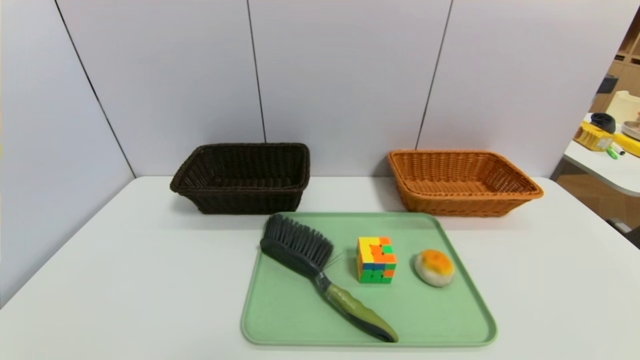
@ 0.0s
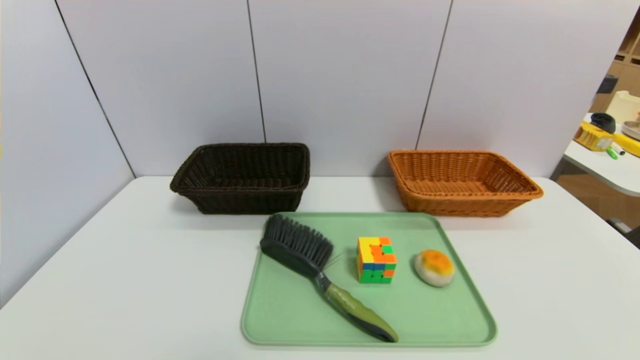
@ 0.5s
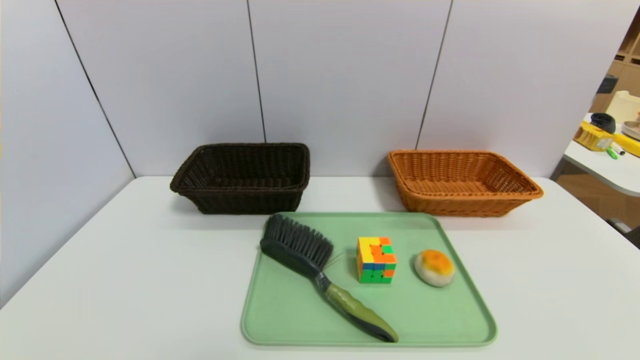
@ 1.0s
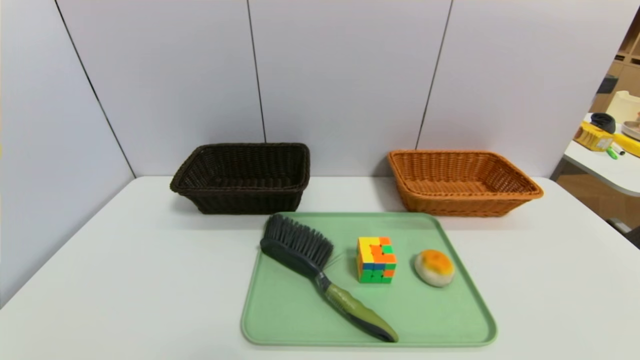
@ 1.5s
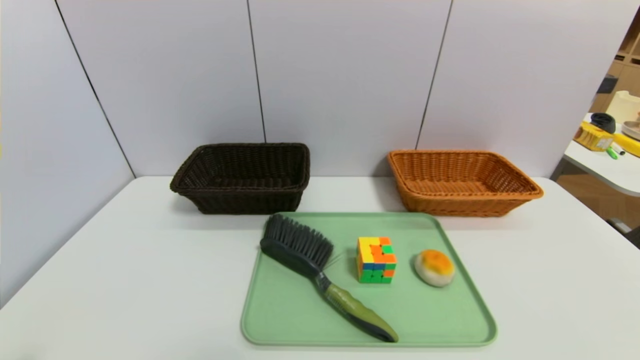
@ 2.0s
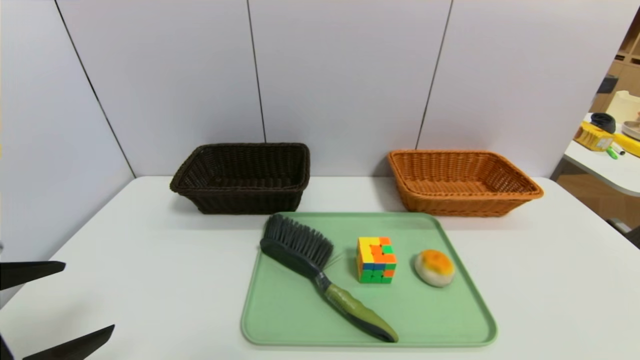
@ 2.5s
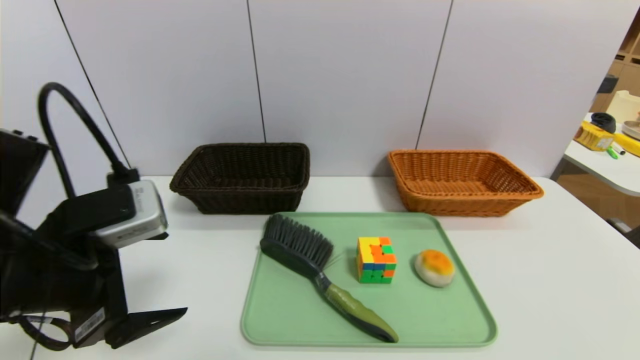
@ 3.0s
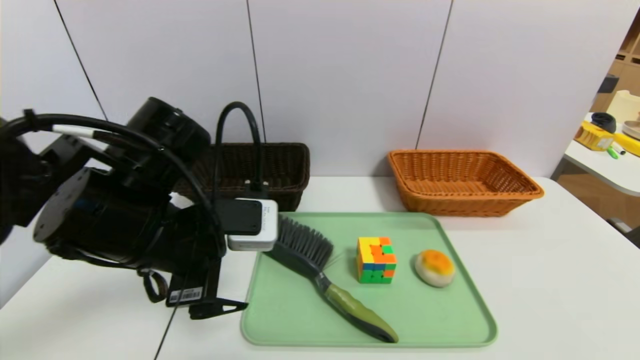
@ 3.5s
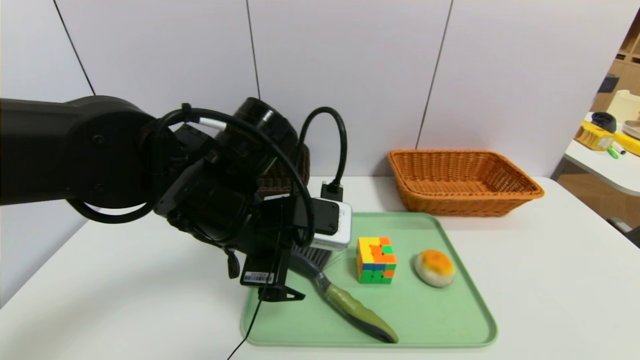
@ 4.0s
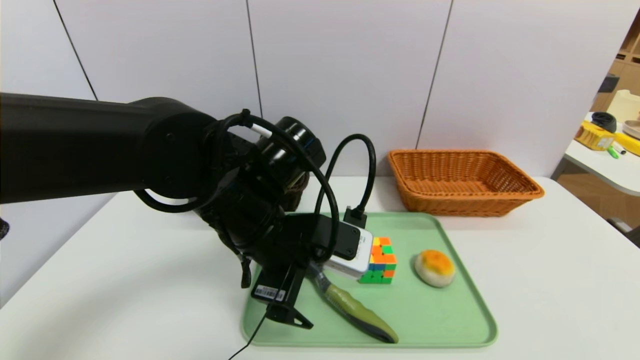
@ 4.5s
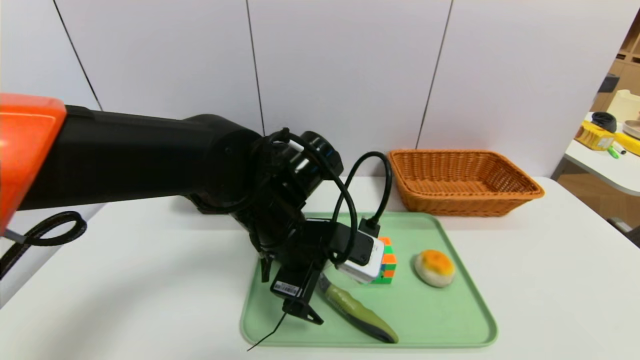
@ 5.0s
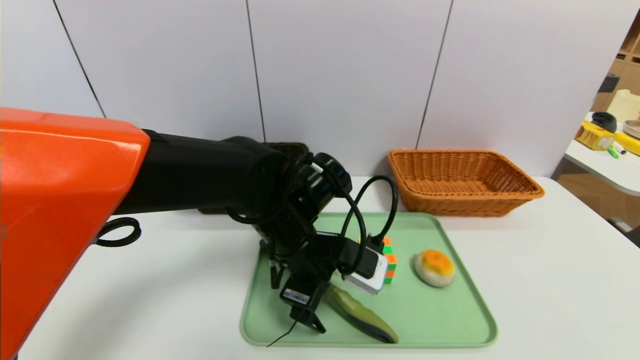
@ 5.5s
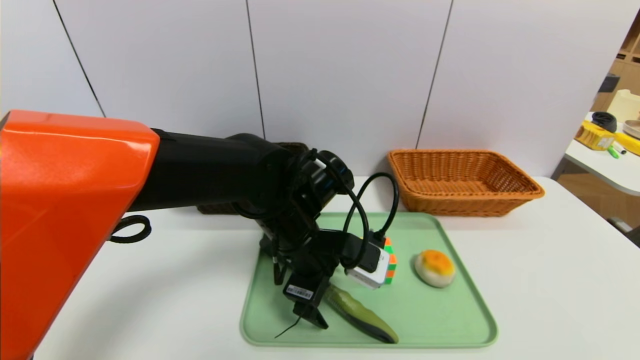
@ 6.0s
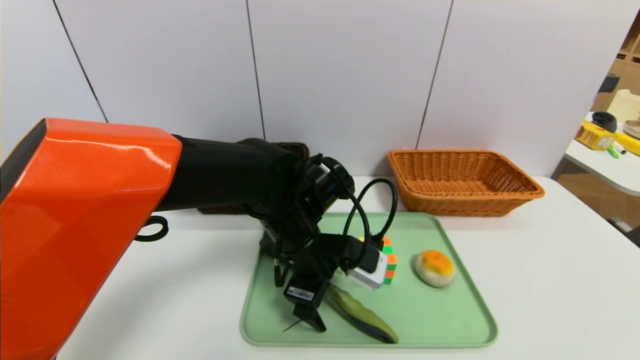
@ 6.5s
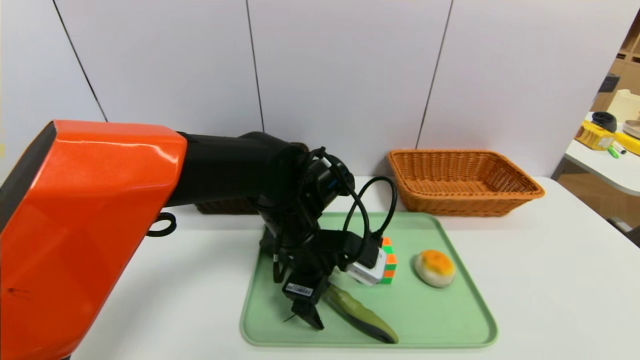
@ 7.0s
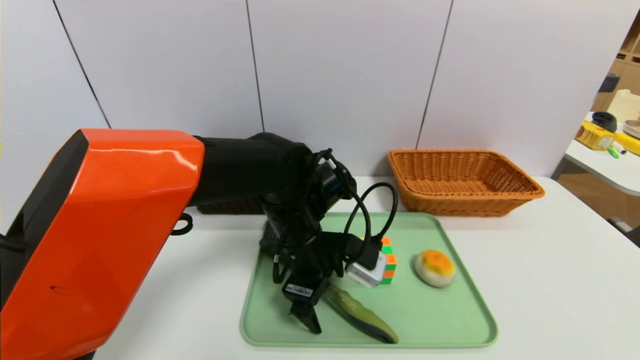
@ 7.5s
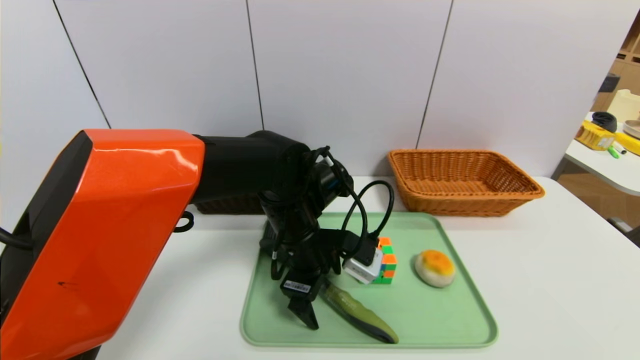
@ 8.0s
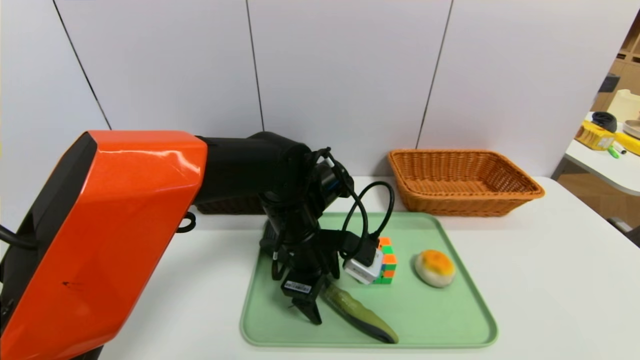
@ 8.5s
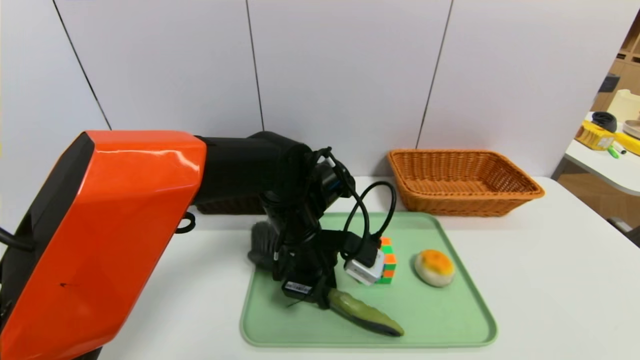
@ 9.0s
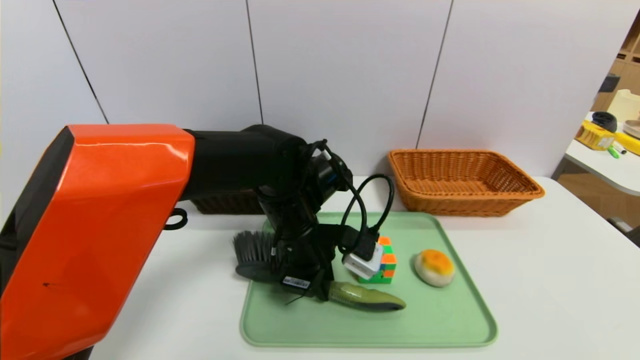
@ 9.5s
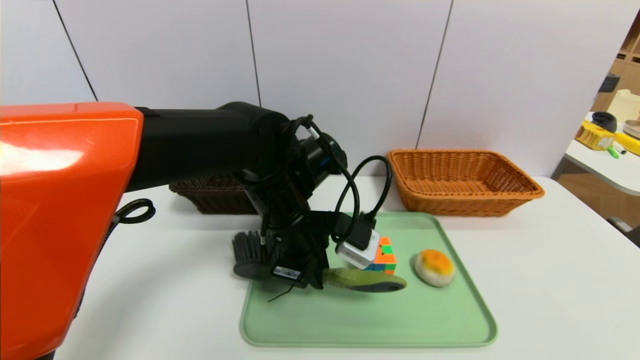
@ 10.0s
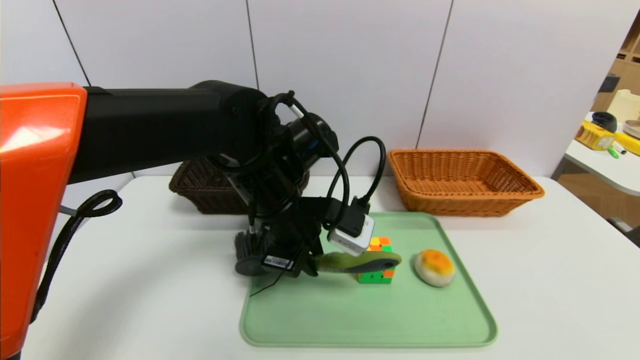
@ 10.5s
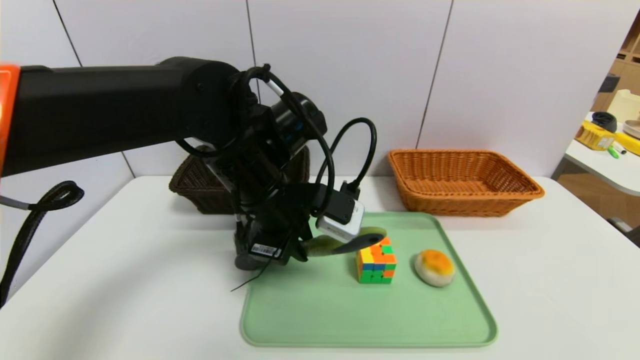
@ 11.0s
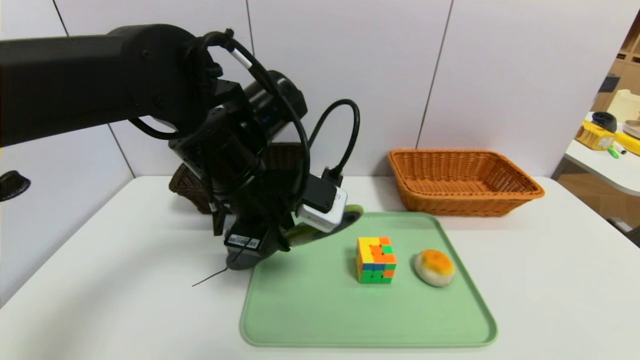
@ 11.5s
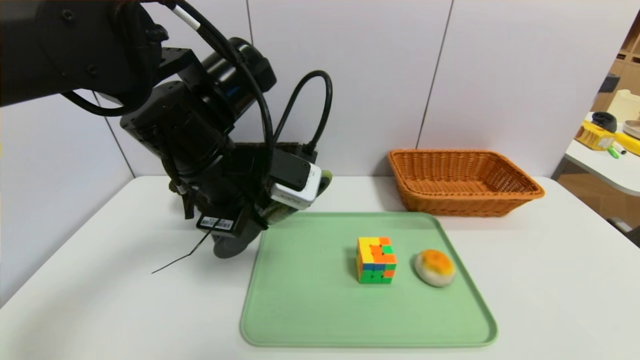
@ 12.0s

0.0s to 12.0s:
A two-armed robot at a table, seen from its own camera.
Task of the whole recording: place the food in the right basket with the right gripper, and place the non food items in the left basket with the left gripper.
2.0s to 4.0s: The left gripper travels forward and to the right by roughly 30 cm.
4.0s to 6.0s: The left gripper is displaced downward and to the right by approximately 10 cm.
6.0s to 8.0s: The grippers stay close to where they were, moving slightly.
8.0s to 10.0s: The left gripper closes.
10.0s to 12.0s: The left gripper shifts some 10 cm upward and to the left.

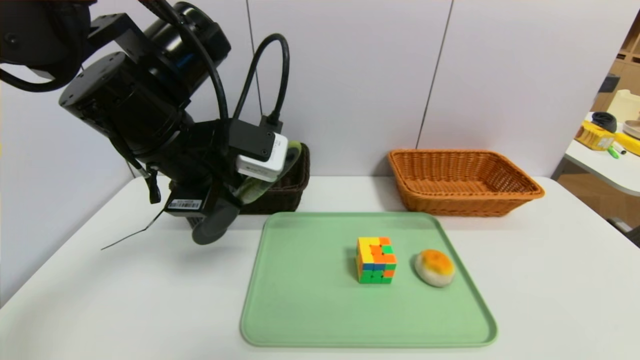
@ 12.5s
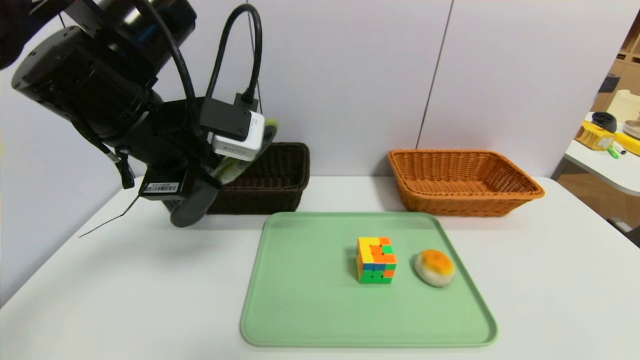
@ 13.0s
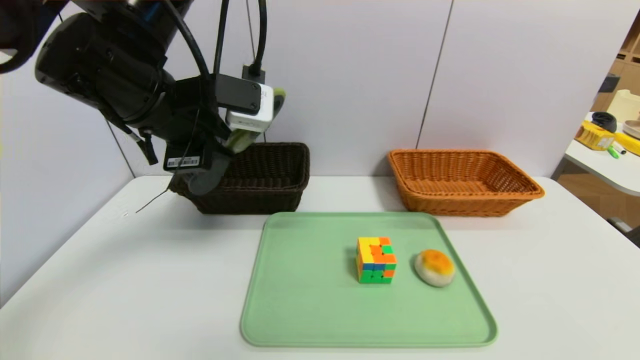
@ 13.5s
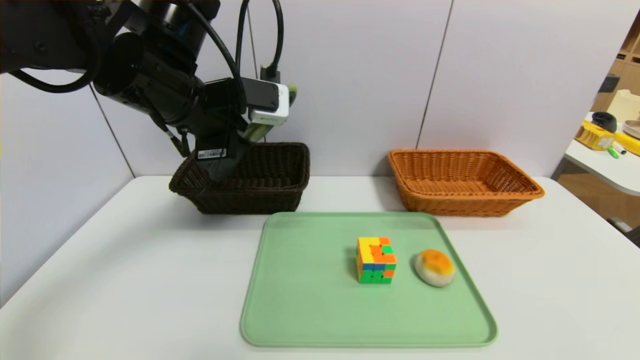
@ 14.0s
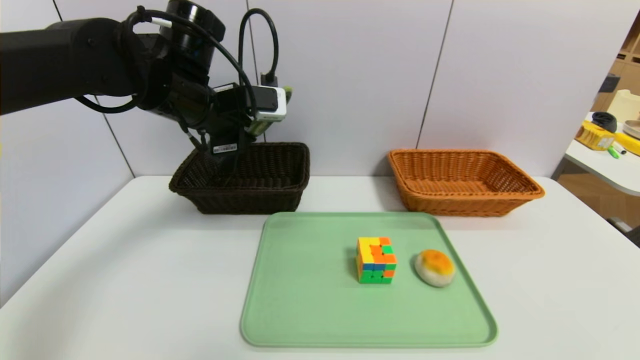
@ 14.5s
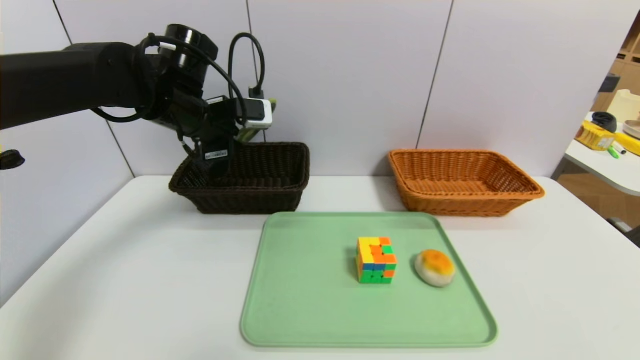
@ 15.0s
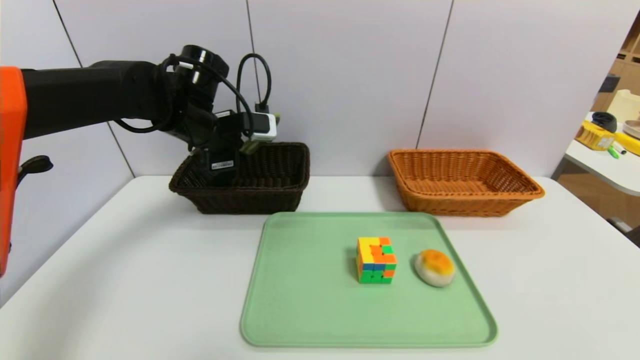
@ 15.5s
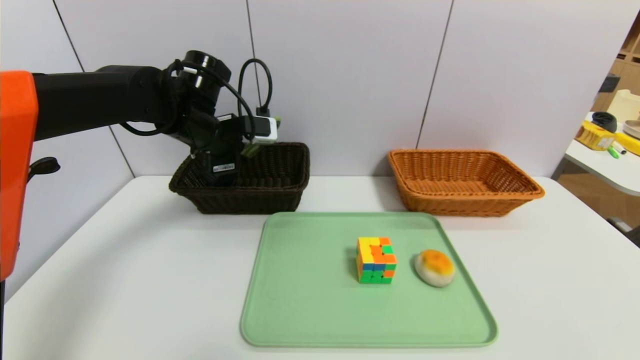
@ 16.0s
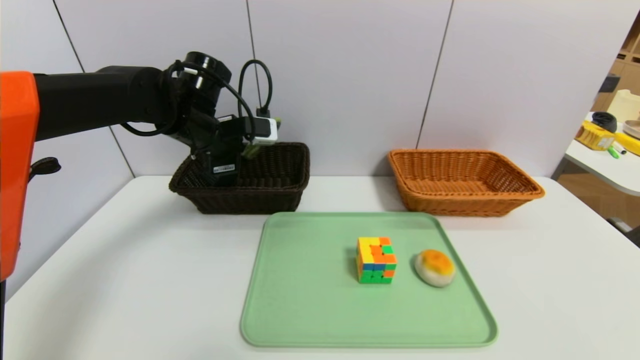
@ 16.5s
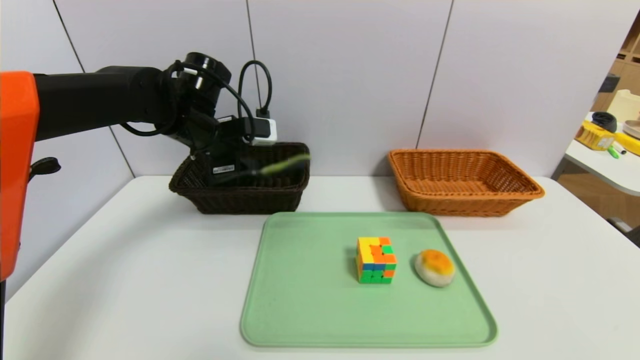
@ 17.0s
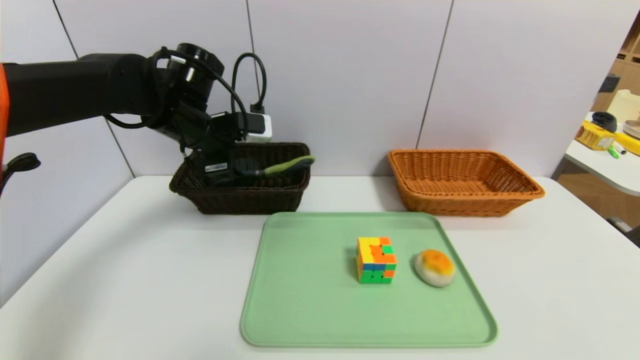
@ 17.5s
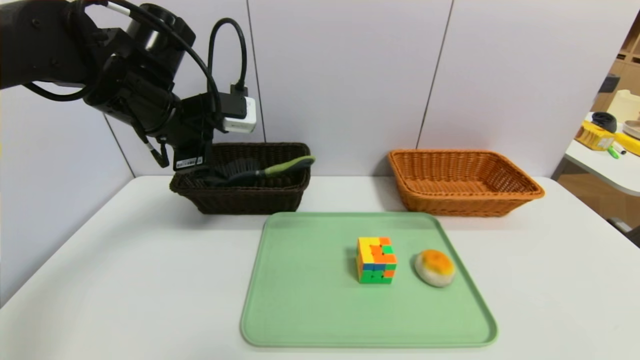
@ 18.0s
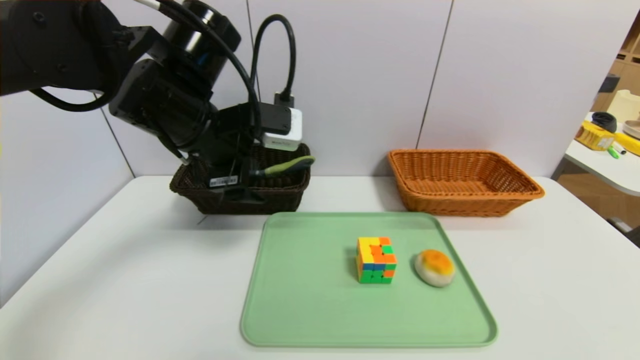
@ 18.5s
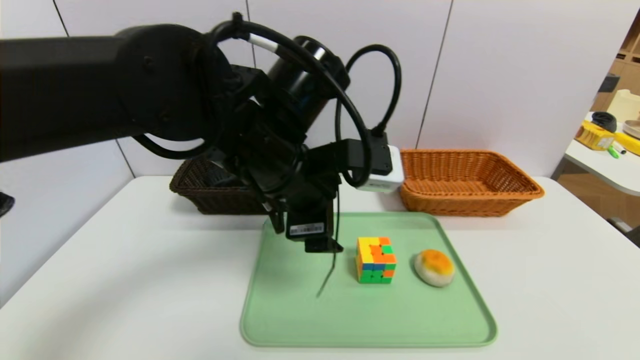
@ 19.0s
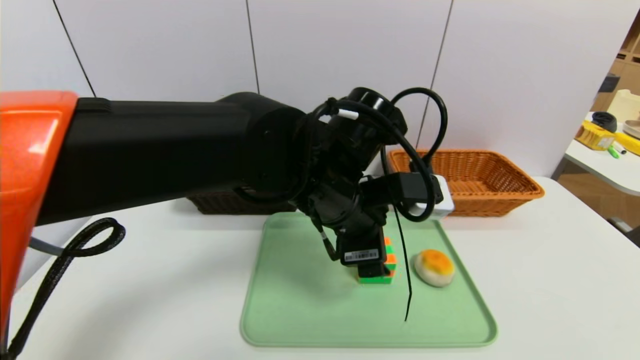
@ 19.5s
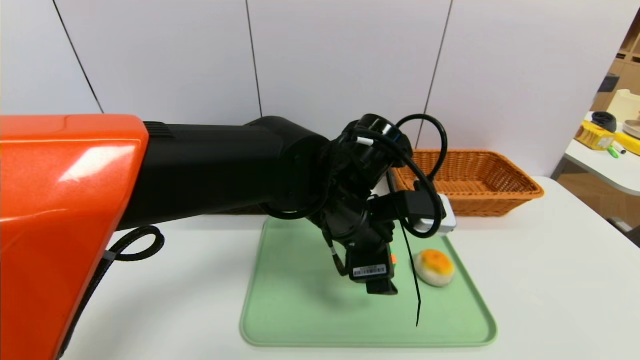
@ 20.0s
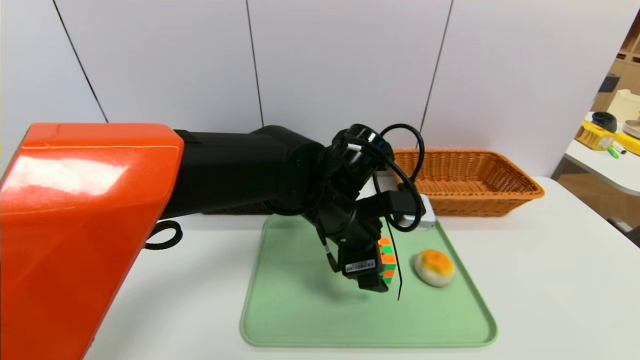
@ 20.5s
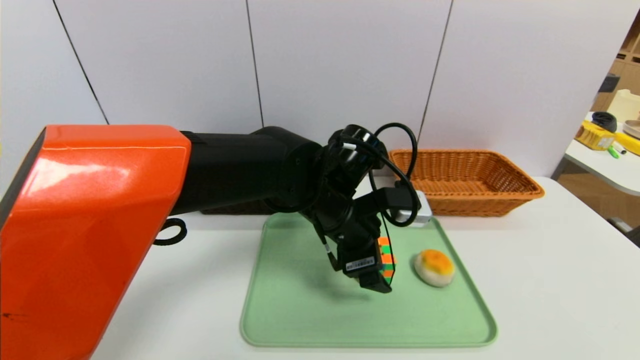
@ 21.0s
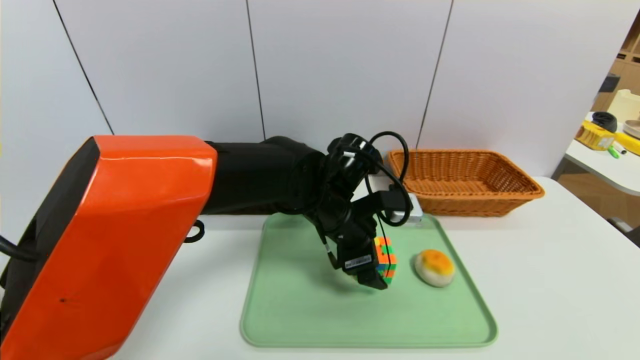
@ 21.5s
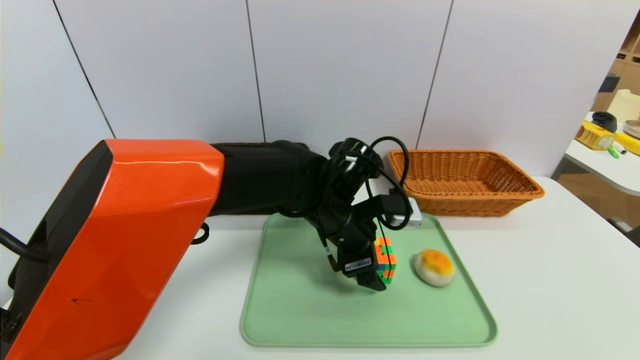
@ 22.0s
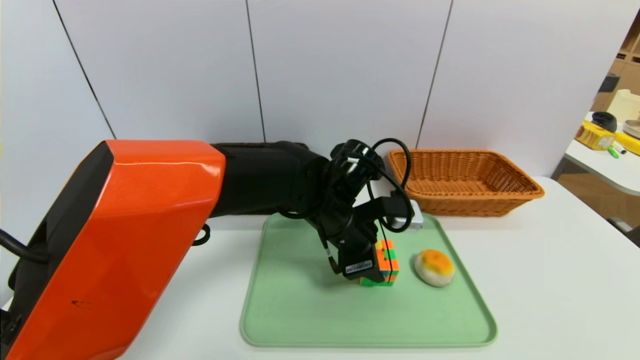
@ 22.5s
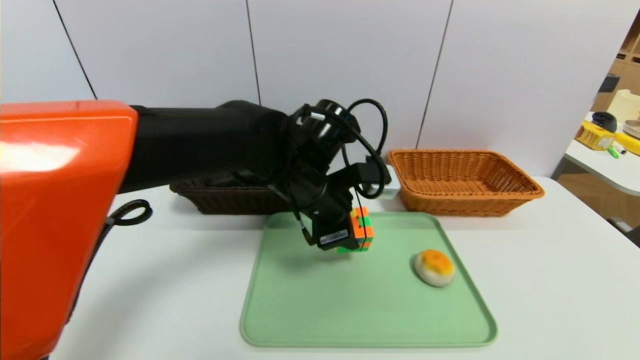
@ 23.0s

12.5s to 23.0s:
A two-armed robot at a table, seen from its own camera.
Task of the whole recording: place the food in the right basket with the right gripper, and place the non food items in the left basket with the left gripper.
Step, 12.5s to 17.5s: Grasp the brush and put it in the left basket.
12.5s to 14.5s: The left gripper moves forward, roughly 10 cm.
14.5s to 16.5s: The left gripper shifts about 5 cm downward.
16.5s to 19.0s: The left gripper travels backward and to the right by roughly 20 cm, and opens up.
19.0s to 21.0s: The left gripper goes some 10 cm downward and to the right.
21.0s to 23.0s: The left gripper ends up approximately 5 cm from where it was, and closes.
